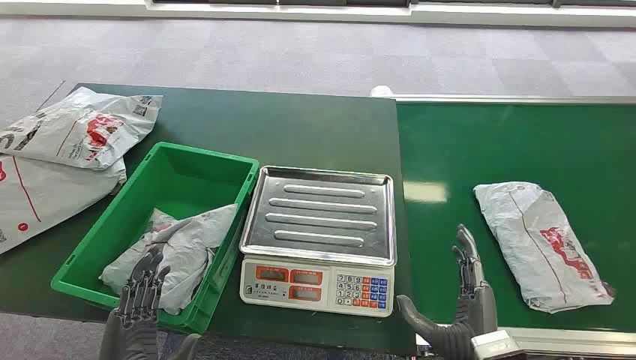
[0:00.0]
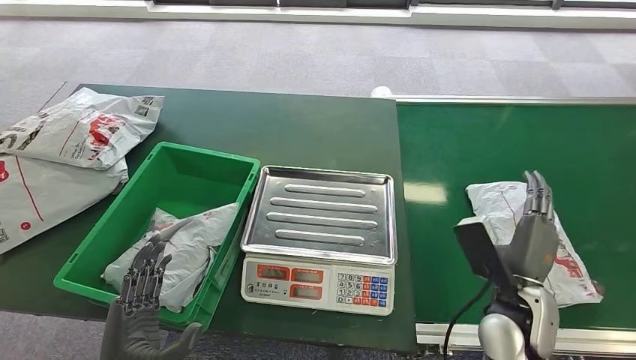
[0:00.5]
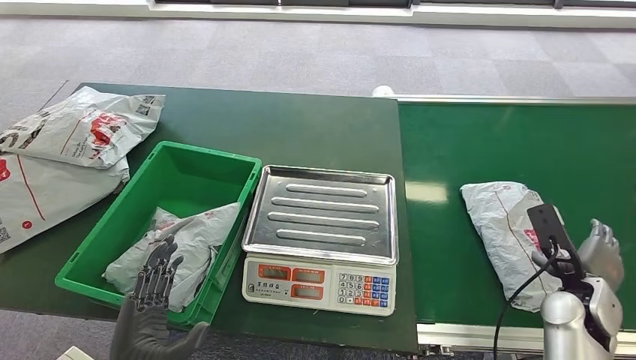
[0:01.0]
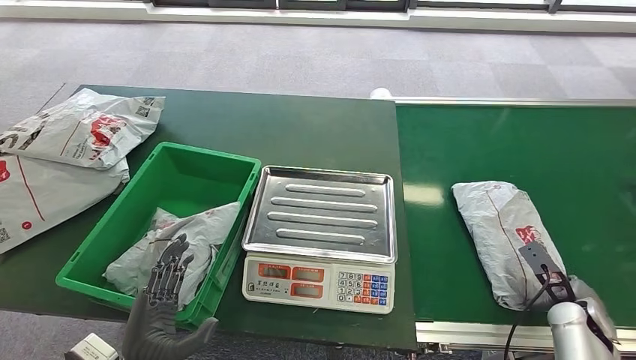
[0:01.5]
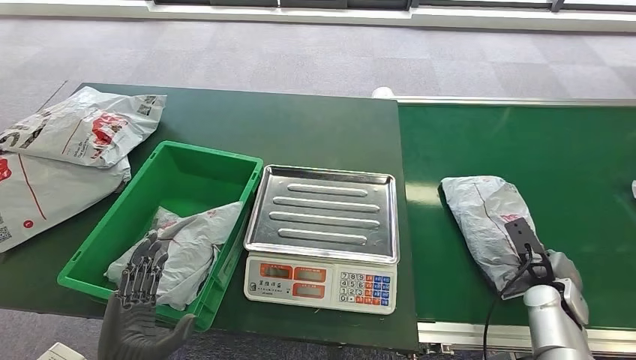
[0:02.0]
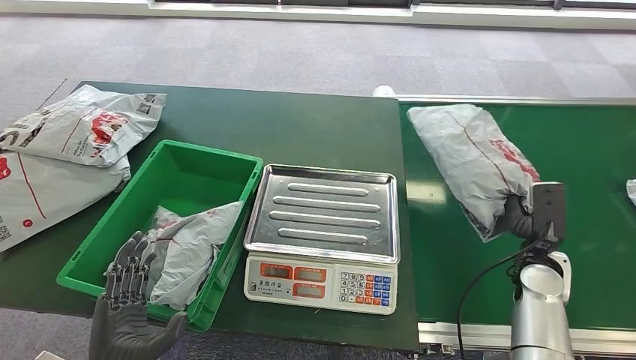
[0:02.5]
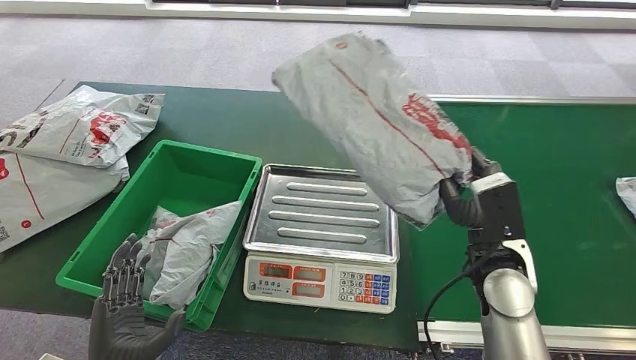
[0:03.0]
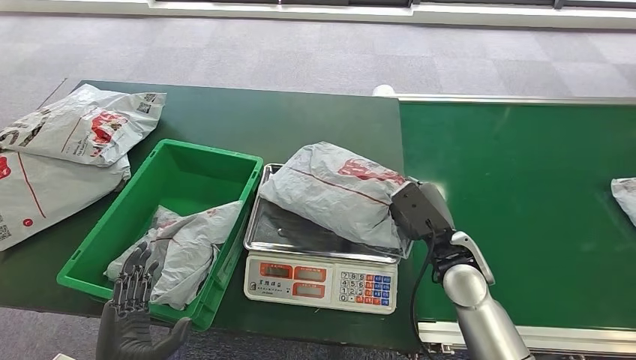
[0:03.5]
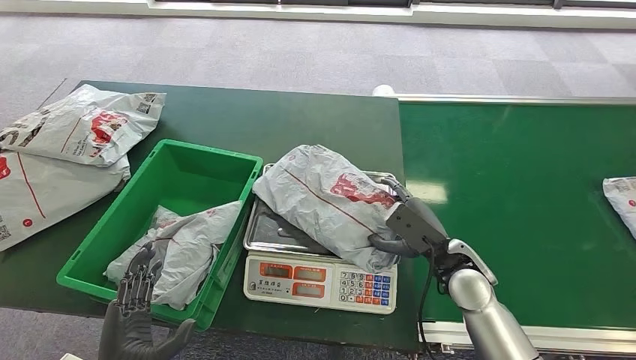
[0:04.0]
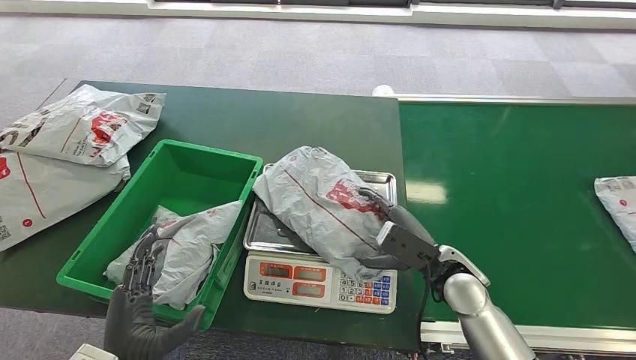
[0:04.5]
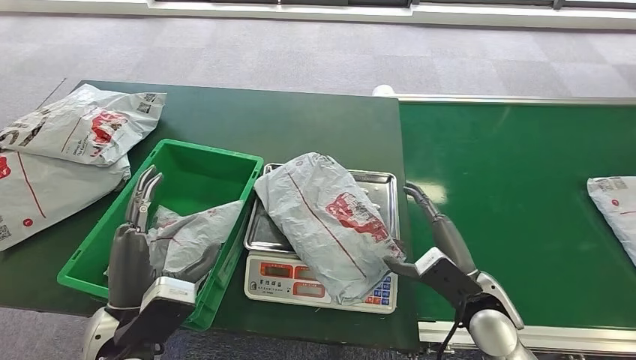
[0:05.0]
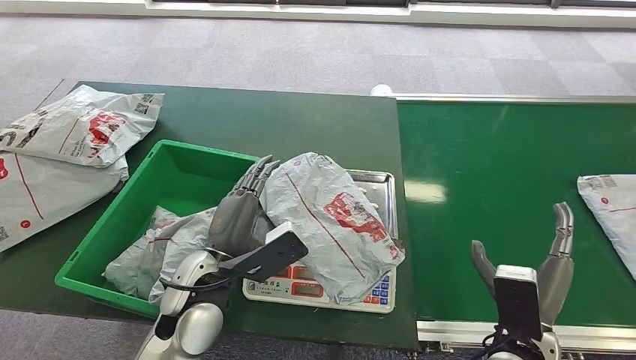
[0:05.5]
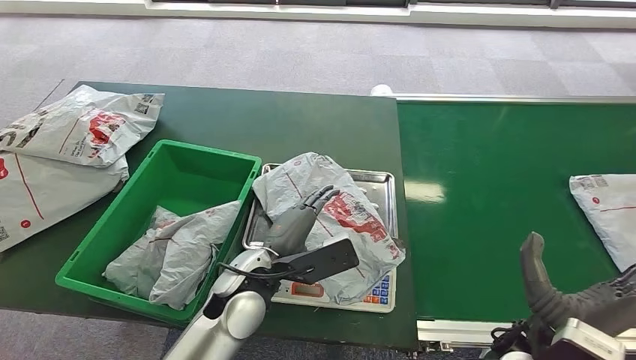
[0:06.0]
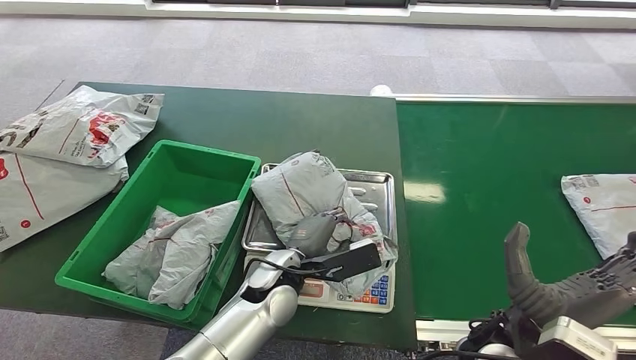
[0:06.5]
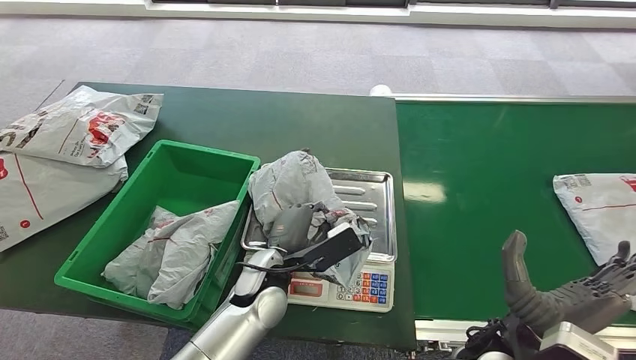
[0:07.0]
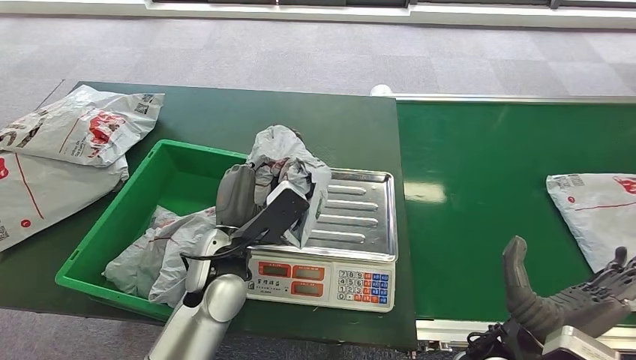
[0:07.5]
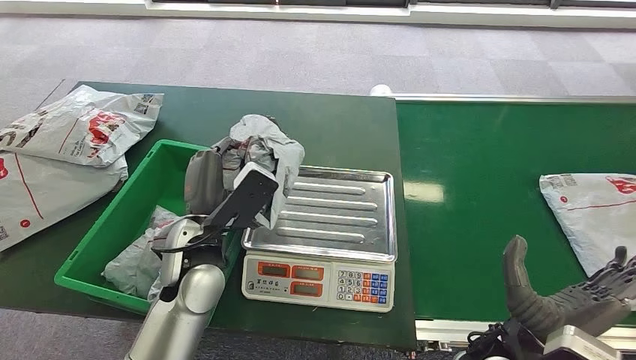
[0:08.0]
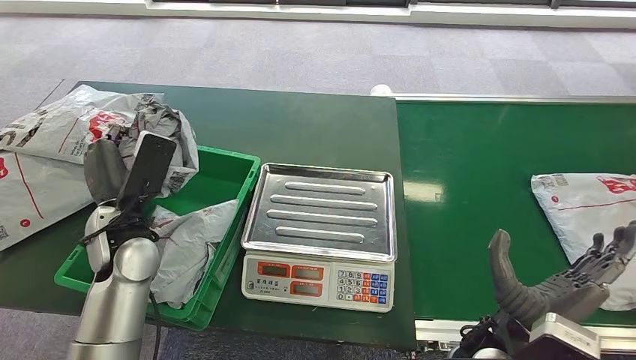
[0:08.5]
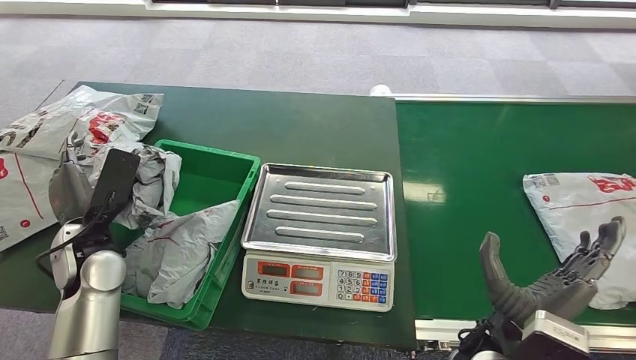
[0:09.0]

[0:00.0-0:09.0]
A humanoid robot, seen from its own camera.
Step, 0:00.0 to 0:02.5: Pick up the package from the conveyor belt.
Step, 0:03.0 to 0:05.5: Place the package onto the inbound machine.
Step, 0:06.0 to 0:07.5: Pick up the package from the inbound machine.
Step, 0:08.0 to 0:09.0: Place the package into the parcel locker.
